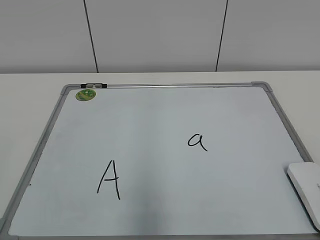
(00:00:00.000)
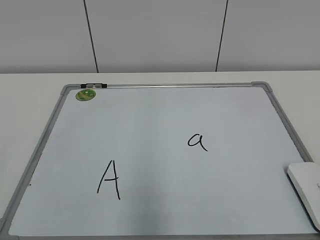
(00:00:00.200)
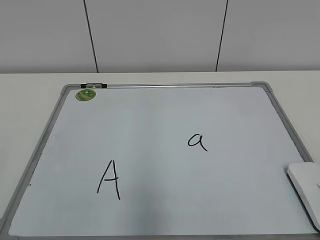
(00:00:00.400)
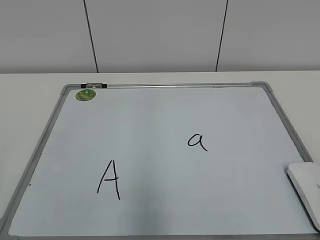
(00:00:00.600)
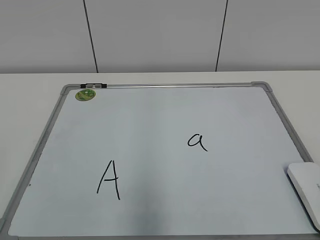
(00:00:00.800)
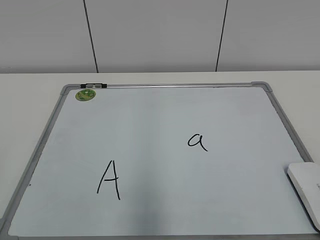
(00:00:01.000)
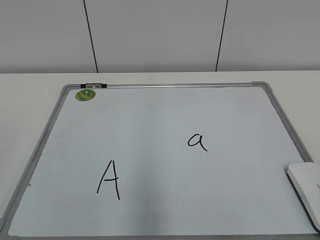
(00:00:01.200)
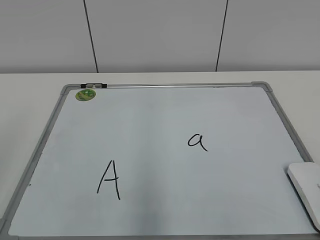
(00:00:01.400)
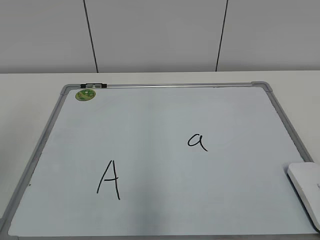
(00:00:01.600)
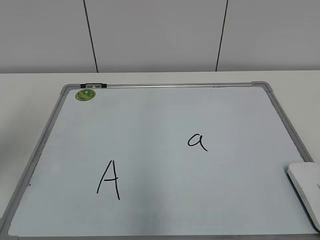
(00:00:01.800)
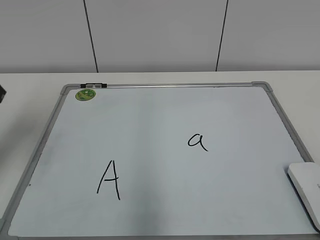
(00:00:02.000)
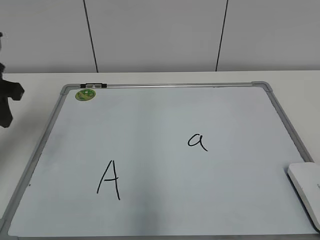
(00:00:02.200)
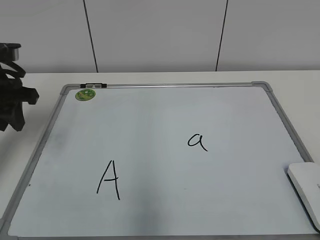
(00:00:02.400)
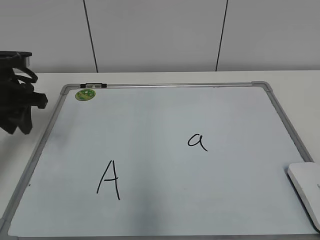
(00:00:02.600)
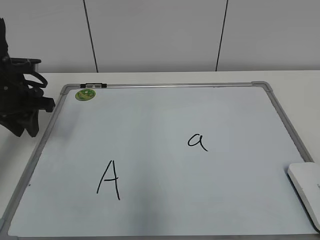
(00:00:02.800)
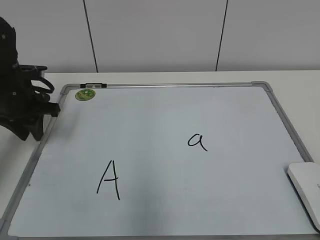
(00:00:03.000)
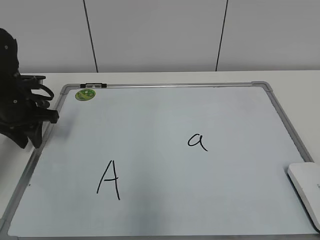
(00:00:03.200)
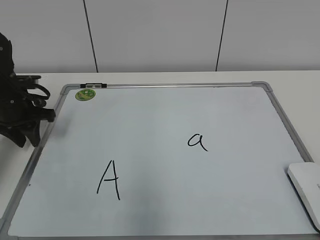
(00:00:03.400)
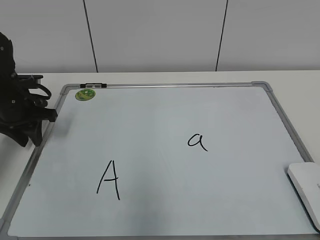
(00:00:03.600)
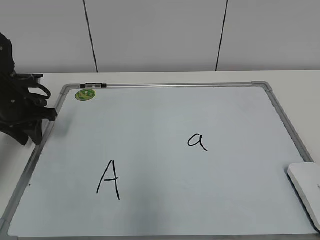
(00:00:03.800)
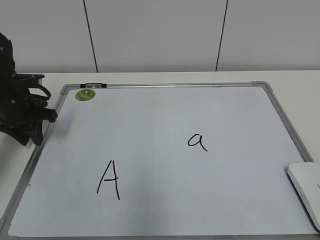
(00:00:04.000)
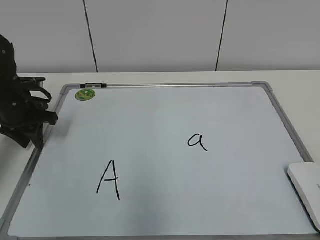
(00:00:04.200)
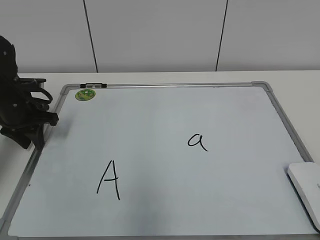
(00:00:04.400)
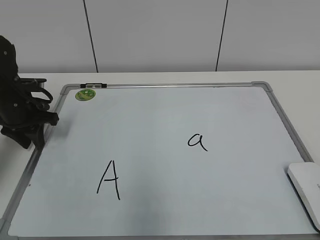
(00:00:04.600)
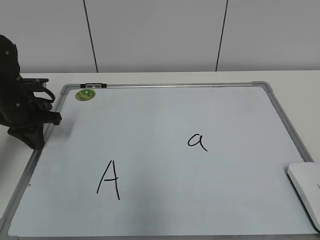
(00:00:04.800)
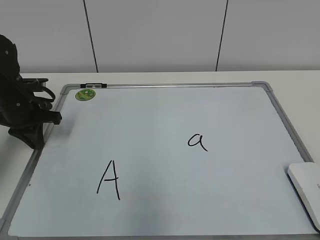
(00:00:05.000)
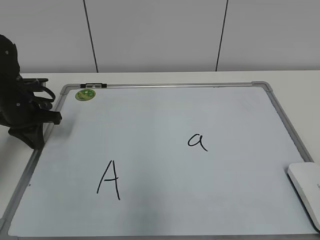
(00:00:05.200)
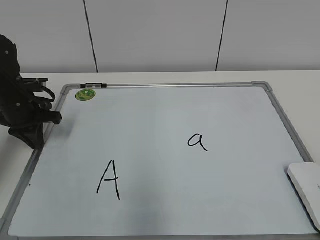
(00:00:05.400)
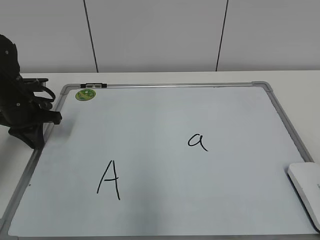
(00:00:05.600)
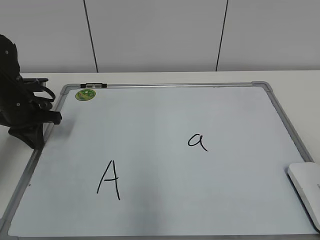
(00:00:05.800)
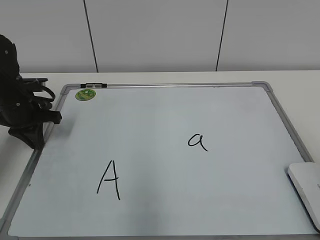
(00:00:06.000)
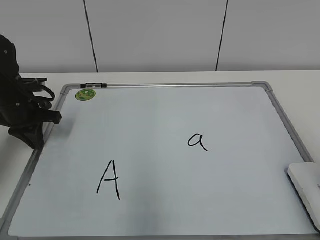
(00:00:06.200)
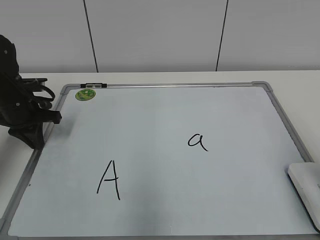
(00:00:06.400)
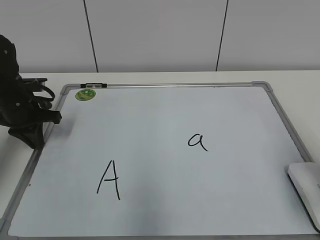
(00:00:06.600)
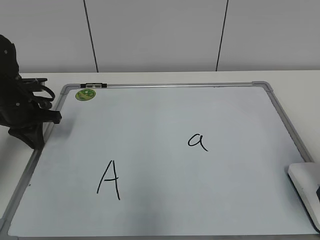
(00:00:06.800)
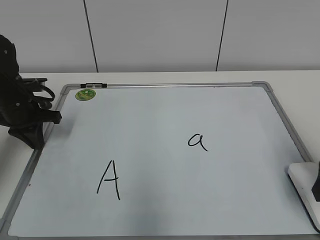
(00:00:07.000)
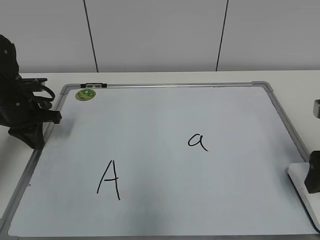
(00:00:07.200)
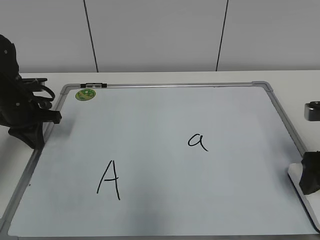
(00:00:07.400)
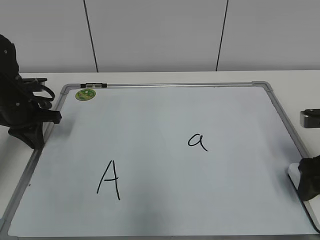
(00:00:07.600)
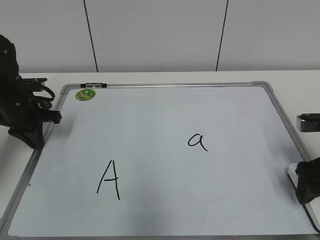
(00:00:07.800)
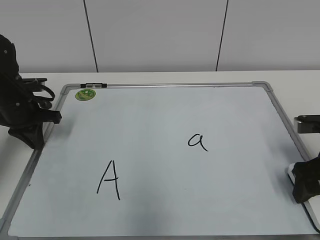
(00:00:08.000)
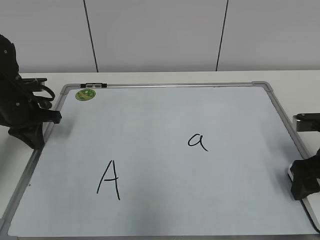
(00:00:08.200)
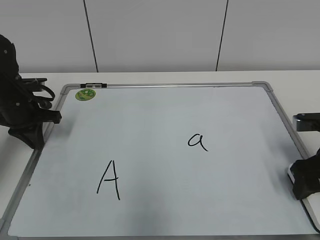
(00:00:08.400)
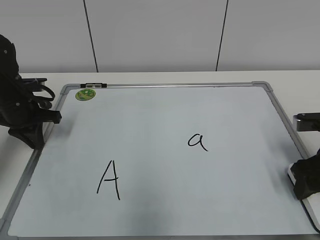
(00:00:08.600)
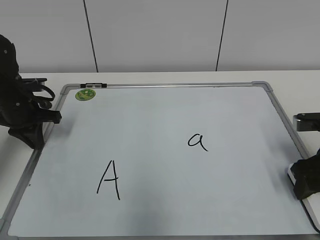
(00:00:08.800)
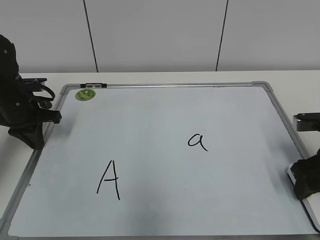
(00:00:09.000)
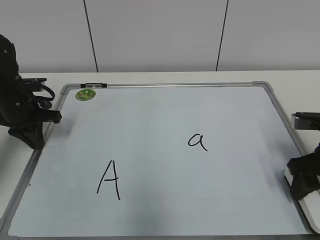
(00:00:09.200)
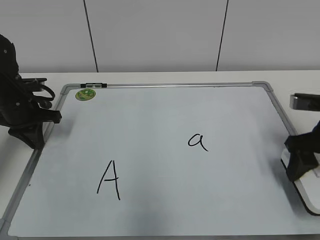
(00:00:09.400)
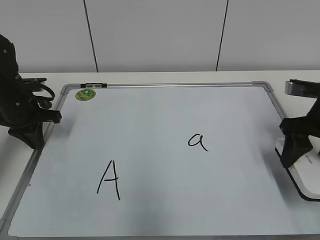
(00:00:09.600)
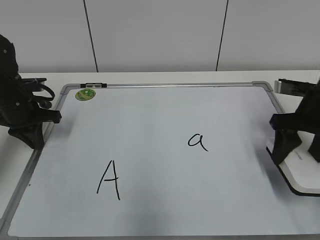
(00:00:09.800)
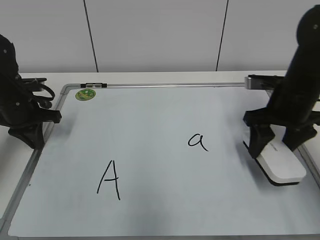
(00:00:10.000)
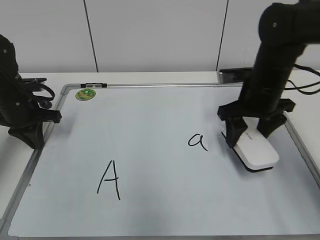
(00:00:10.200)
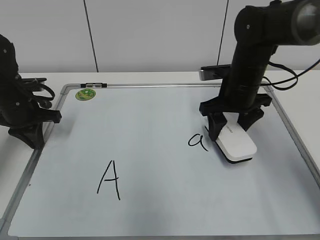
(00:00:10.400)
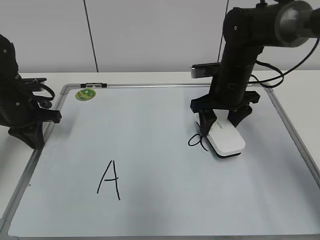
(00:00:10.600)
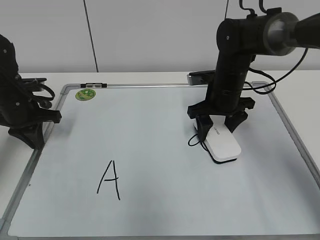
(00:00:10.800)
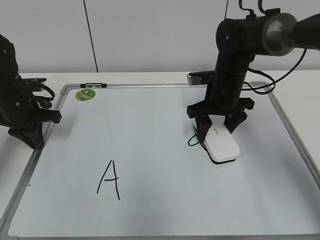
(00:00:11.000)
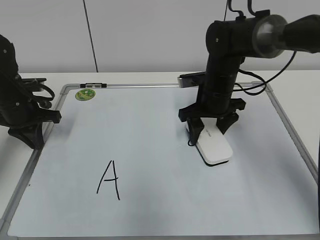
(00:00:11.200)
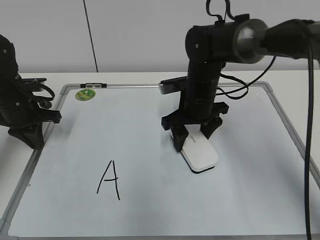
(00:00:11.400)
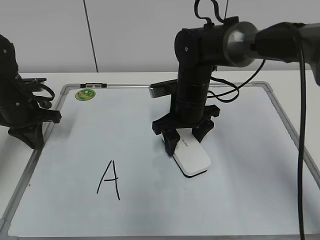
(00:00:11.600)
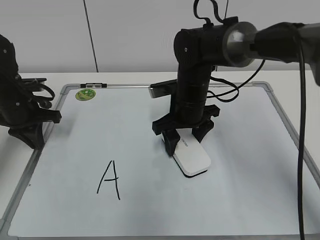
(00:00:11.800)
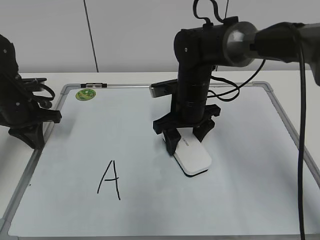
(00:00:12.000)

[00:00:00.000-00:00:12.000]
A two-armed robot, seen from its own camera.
Task of the whole recording: pick up the eraser on the blackboard and erase the letter "a".
Step, 00:00:00.000 to 00:00:04.800: Hold the drawing board steady with your left hand.
00:00:01.600 to 00:00:03.000: The left gripper shifts roughly 30 cm forward and downward.
00:00:03.000 to 00:00:04.400: The grippers stay close to where they were, moving slightly.
00:00:04.400 to 00:00:06.000: The left gripper closes.
00:00:06.000 to 00:00:07.600: The right gripper is displaced forward and downward by approximately 20 cm, and opens its fingers.
00:00:07.600 to 00:00:09.000: The right gripper closes up.
00:00:09.000 to 00:00:10.400: The right gripper moves forward and to the left, approximately 20 cm.
00:00:10.400 to 00:00:12.000: The right gripper travels to the left by some 10 cm.

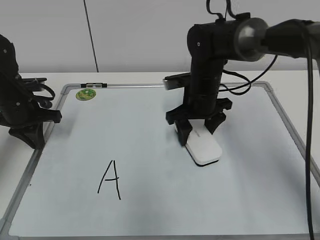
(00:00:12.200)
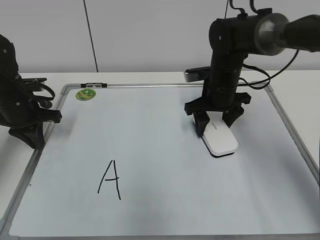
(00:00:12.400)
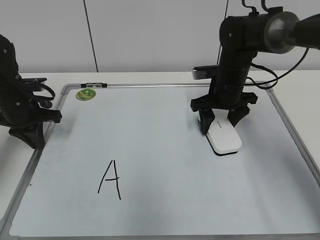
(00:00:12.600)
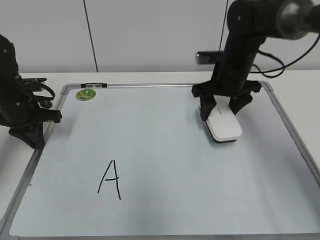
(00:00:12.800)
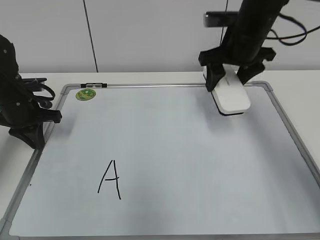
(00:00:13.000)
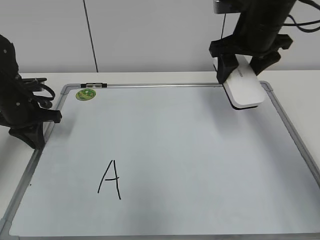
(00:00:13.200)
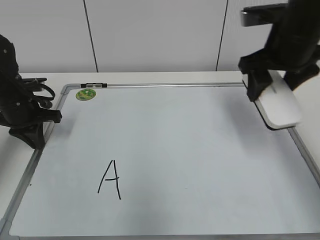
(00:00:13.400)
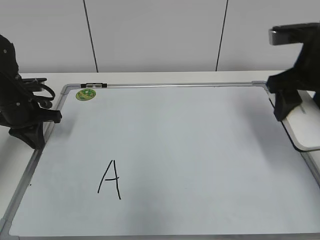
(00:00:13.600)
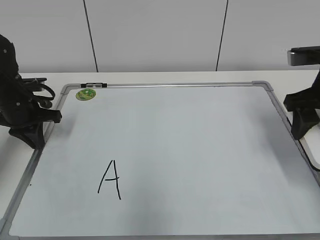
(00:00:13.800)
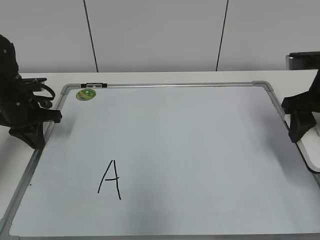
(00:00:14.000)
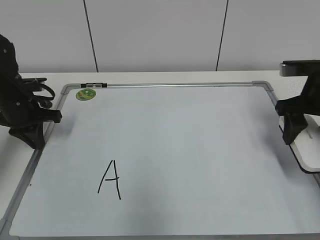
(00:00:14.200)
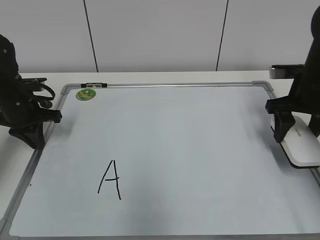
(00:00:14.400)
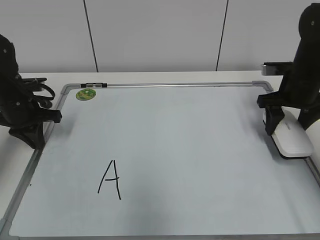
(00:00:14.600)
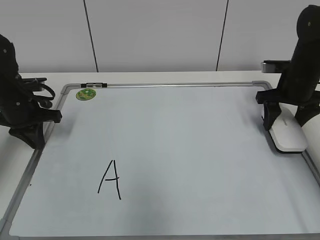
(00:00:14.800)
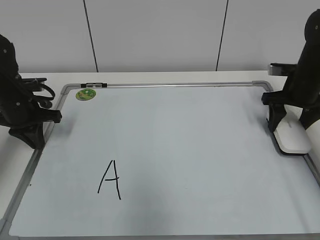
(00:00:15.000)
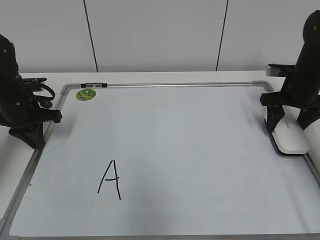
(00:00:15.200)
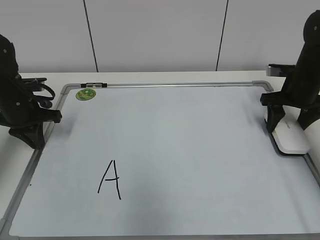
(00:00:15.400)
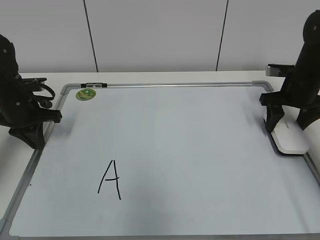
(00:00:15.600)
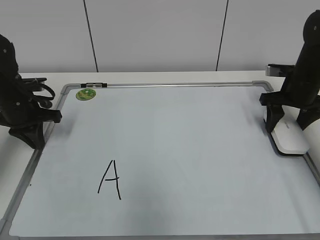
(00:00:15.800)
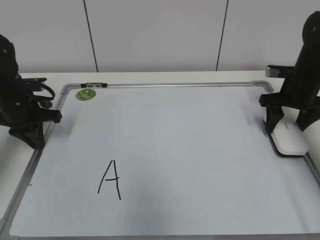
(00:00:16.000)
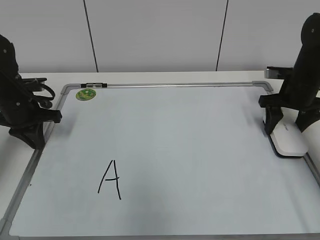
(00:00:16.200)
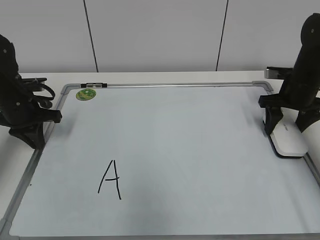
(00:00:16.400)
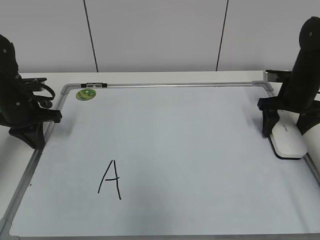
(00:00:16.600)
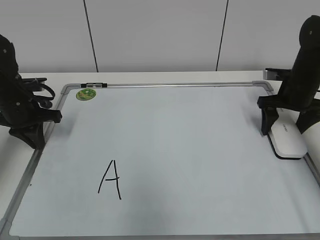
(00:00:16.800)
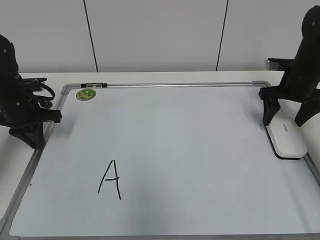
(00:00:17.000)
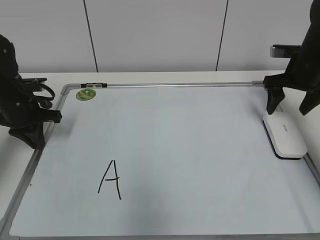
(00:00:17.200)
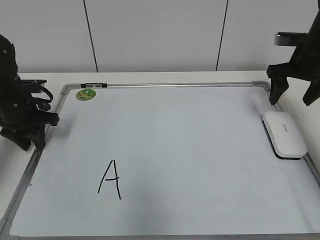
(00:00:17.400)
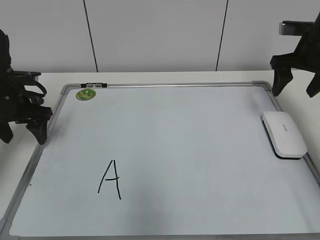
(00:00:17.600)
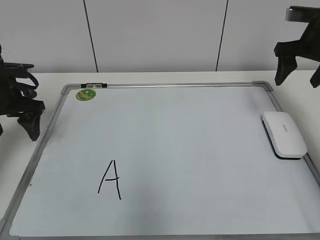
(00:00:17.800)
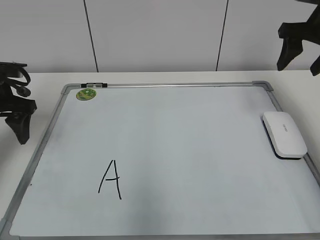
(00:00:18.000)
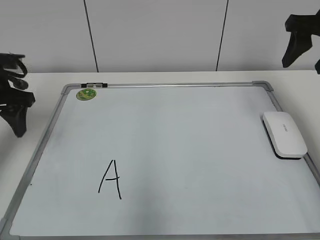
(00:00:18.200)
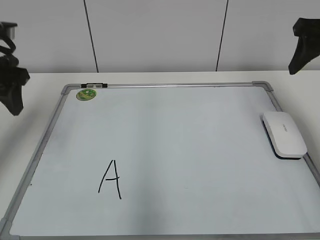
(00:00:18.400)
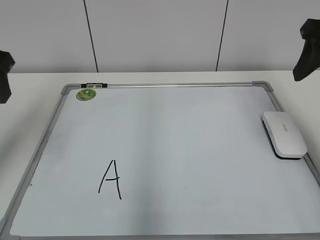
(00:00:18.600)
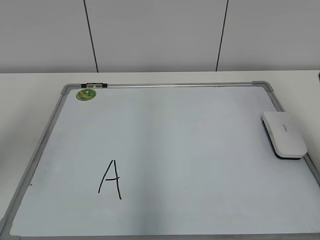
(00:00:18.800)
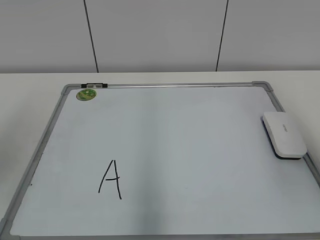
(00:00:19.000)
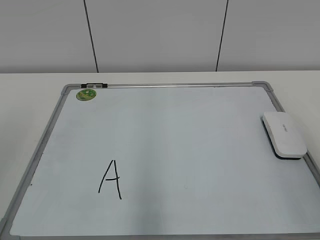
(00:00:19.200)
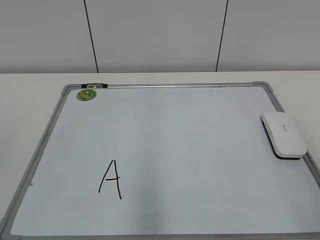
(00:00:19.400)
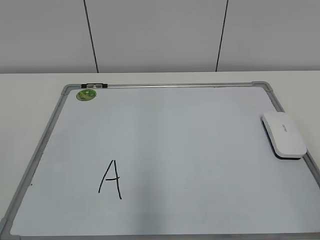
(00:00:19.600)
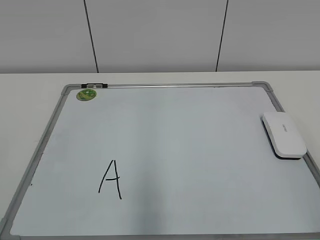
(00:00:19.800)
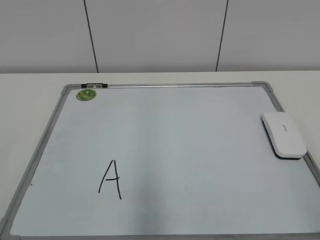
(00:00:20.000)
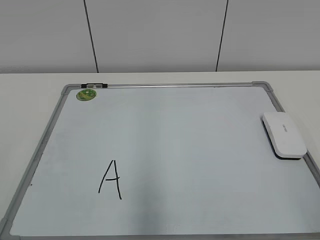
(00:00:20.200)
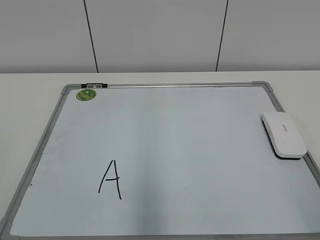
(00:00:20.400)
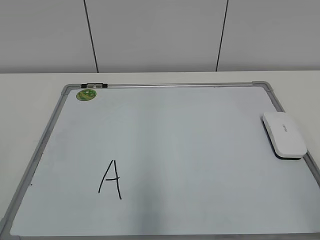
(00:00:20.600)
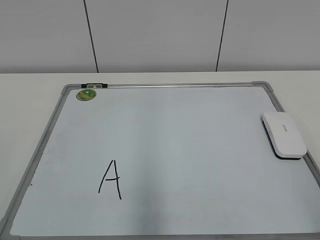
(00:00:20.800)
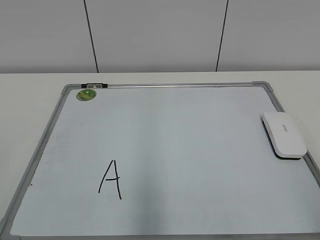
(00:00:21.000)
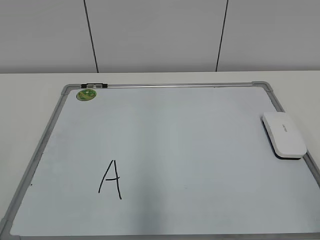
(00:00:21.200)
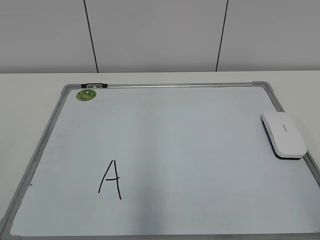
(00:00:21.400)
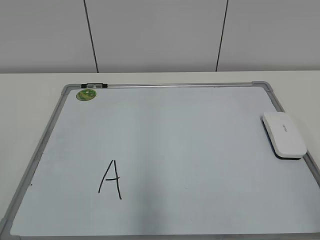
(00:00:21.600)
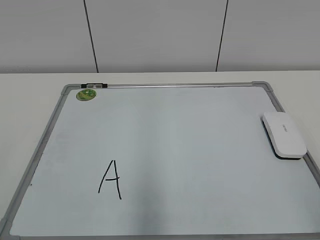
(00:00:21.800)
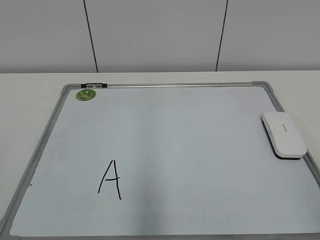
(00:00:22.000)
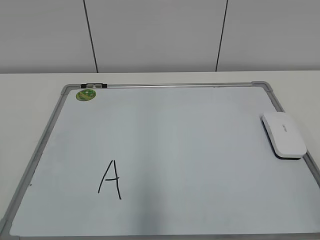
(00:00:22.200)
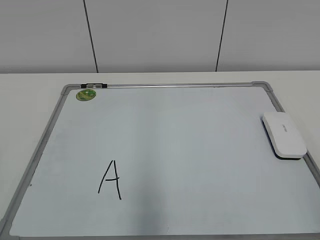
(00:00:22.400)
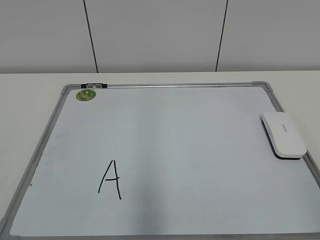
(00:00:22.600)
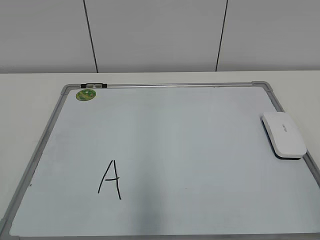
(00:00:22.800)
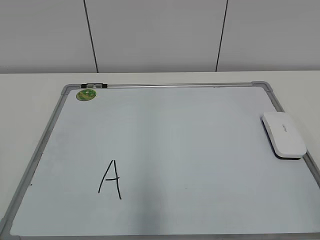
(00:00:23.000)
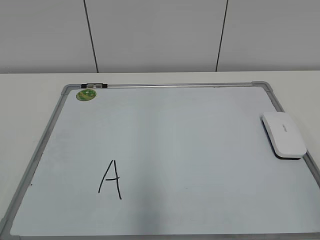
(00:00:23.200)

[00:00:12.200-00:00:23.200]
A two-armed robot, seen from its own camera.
Task of the whole recording: pick up the eraser on the blackboard and erase the letter "a".
Step, 00:00:12.800 to 00:00:16.400: Put down the eraser with your right hand.
00:00:12.200 to 00:00:13.800: The right gripper travels to the right, upward and backward by about 20 cm.
00:00:13.800 to 00:00:15.400: The right gripper is displaced forward and downward by approximately 15 cm.
00:00:15.400 to 00:00:17.000: The right gripper opens up.
00:00:17.000 to 00:00:18.400: Both grippers move upward and backward, approximately 15 cm. The right gripper closes, while the left gripper opens.
00:00:18.400 to 00:00:20.000: Both grippers move backward, about 35 cm.
